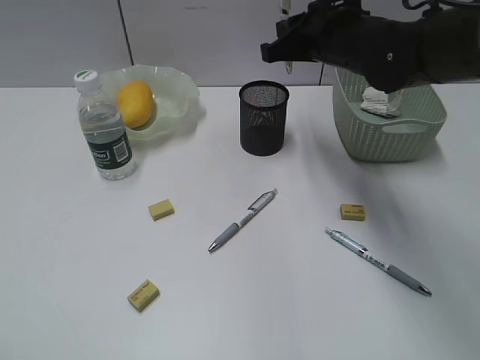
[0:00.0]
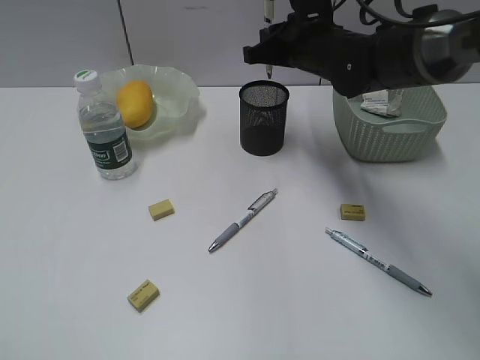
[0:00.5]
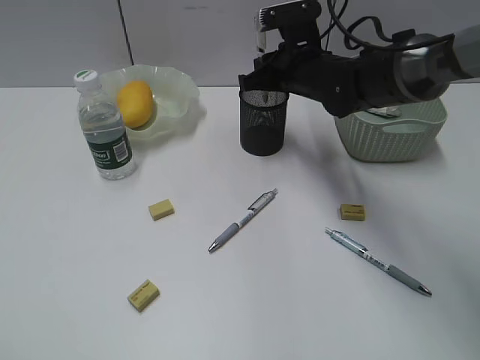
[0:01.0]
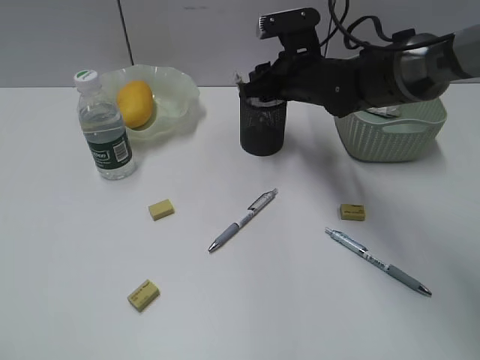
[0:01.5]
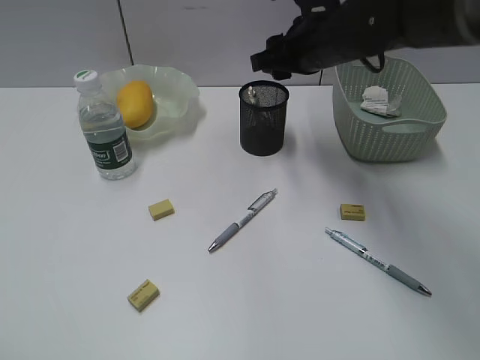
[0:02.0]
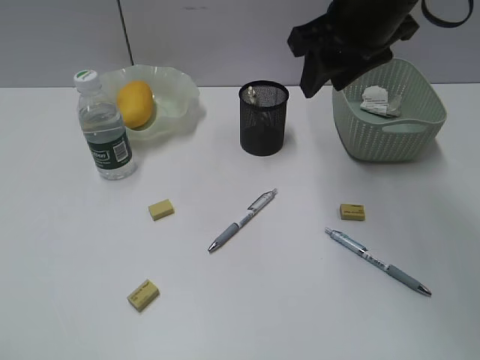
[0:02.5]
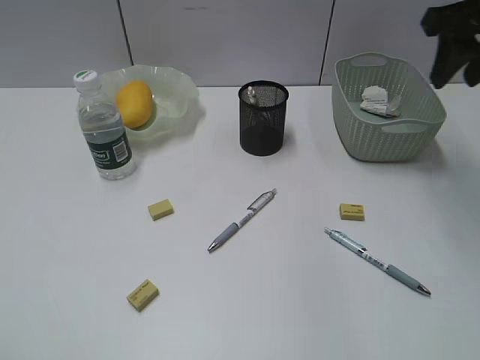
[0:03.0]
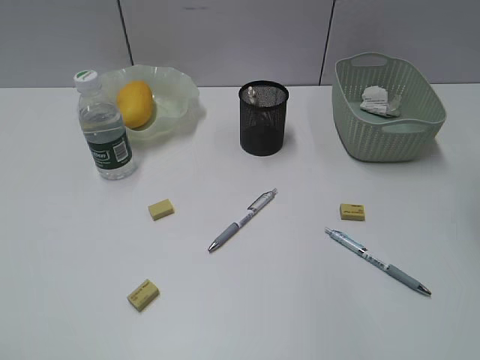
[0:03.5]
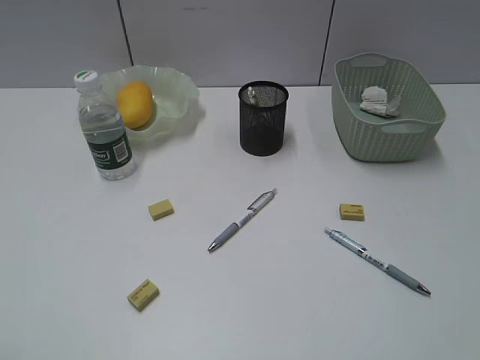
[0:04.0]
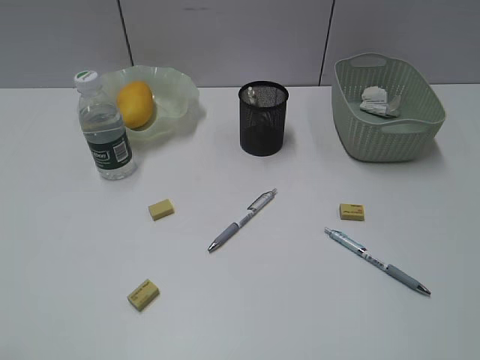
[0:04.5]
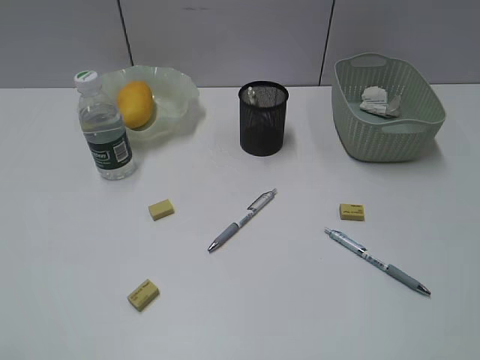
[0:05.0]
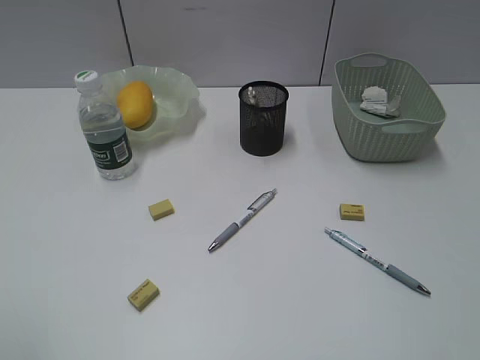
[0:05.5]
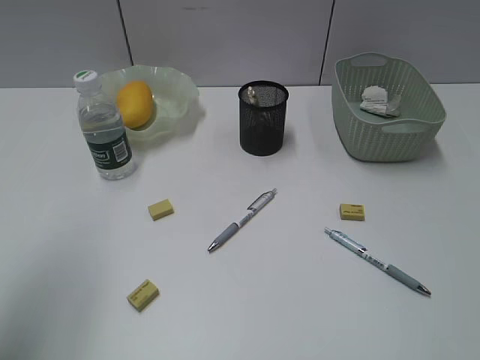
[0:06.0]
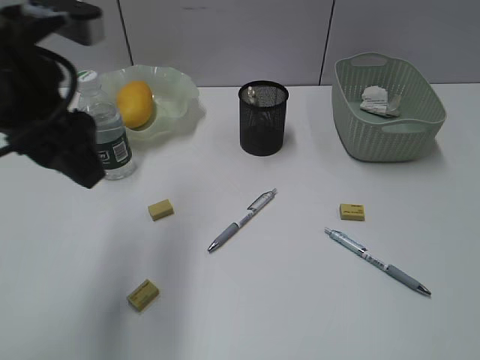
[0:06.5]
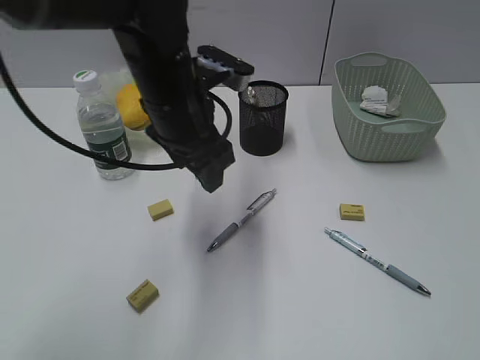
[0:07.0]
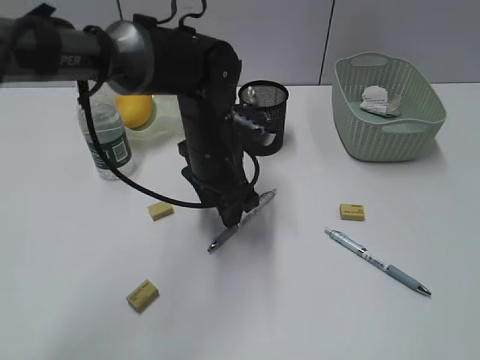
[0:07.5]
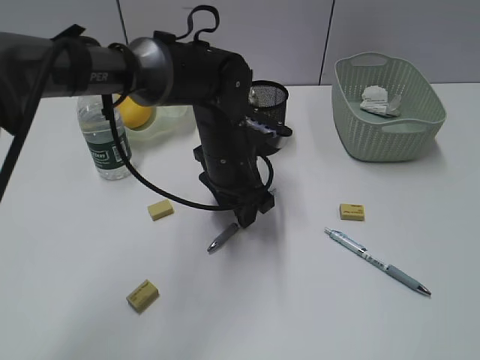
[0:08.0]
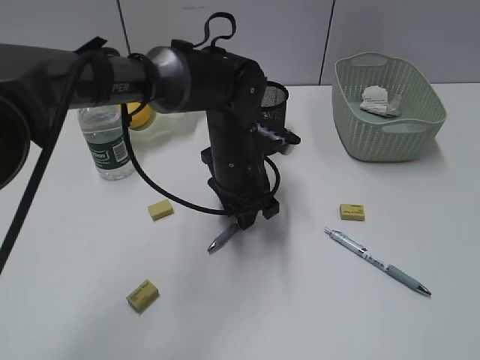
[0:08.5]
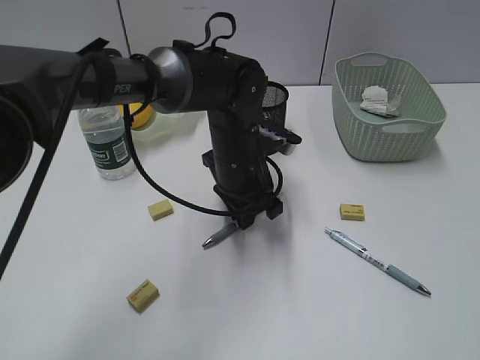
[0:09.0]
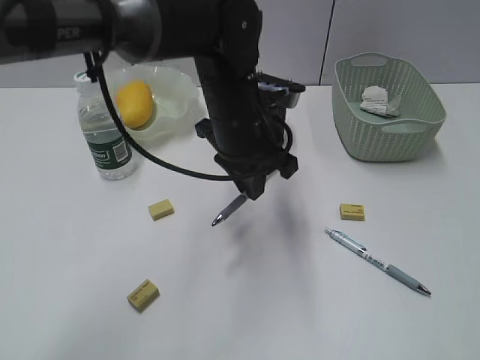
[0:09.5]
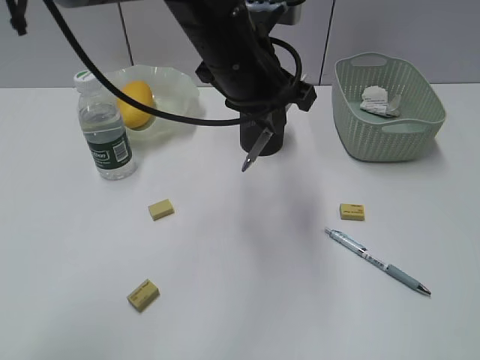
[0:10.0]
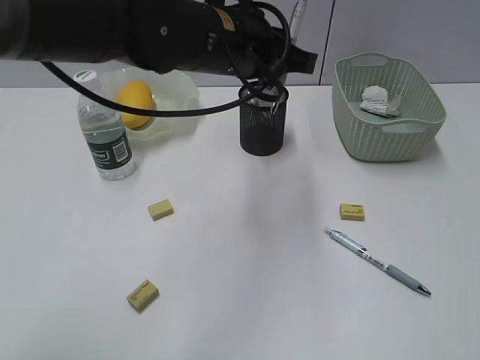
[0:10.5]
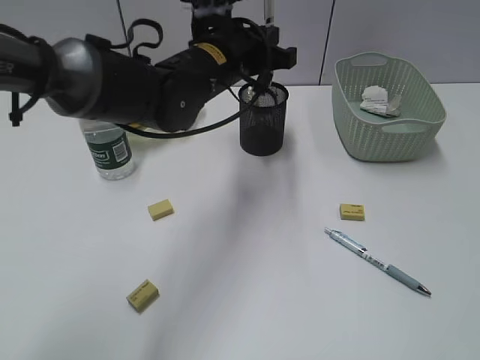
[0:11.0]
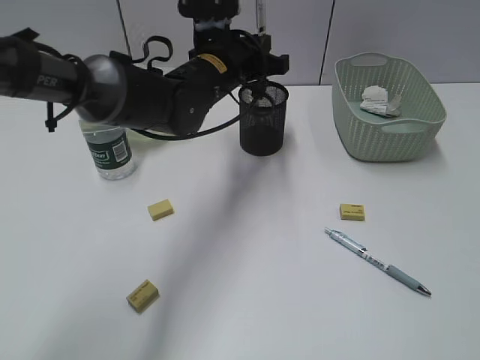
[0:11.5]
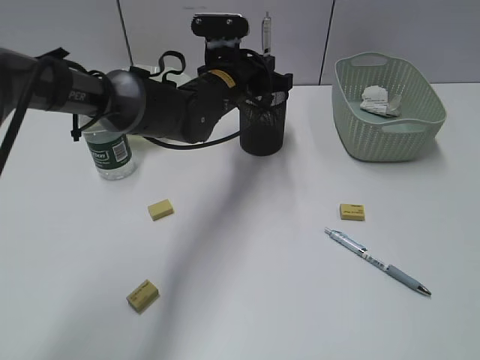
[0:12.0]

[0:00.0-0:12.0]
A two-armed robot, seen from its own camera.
Step, 0:02.0 to 0:08.5: Grasp the gray pen with left gripper.
0:00.0 to 0:02.0: The right gripper opens up.
0:02.0 to 0:04.0: The right gripper moves backward, to the right and upward, some 40 cm.
0:04.0 to 0:06.0: The left gripper moves forward and upward, roughly 15 cm, and opens up.
0:06.0 to 0:08.0: The left gripper moves to the right, downward and forward, roughly 40 cm.
0:08.0 to 0:10.0: The left gripper heads upward, covering about 15 cm, and closes.
0:10.0 to 0:12.0: The left gripper shifts approximately 15 cm downward and forward.

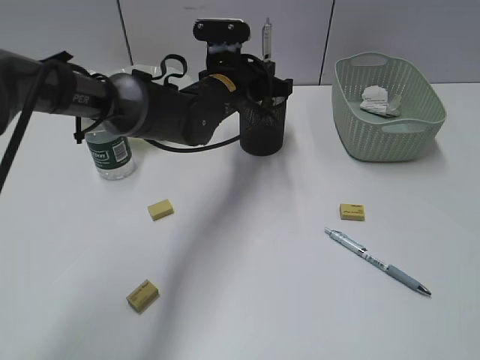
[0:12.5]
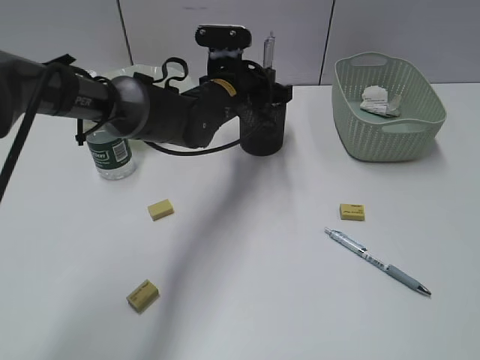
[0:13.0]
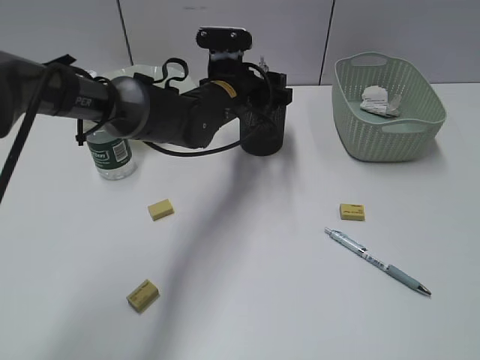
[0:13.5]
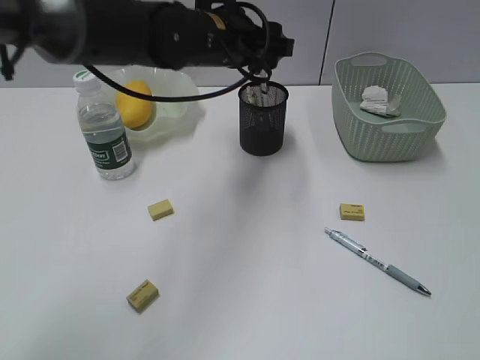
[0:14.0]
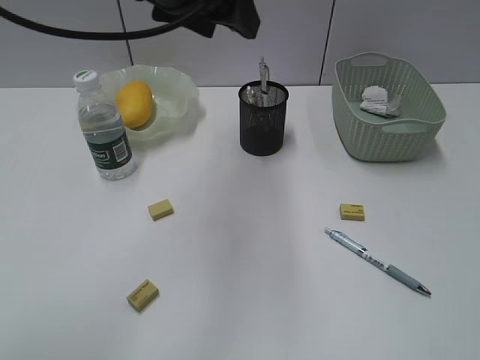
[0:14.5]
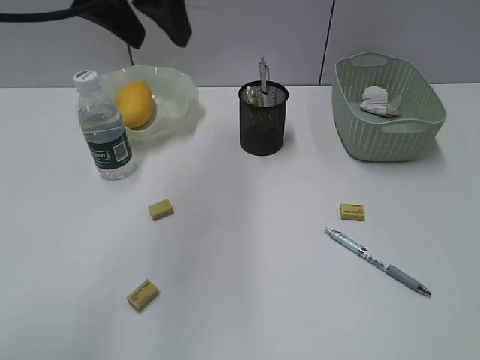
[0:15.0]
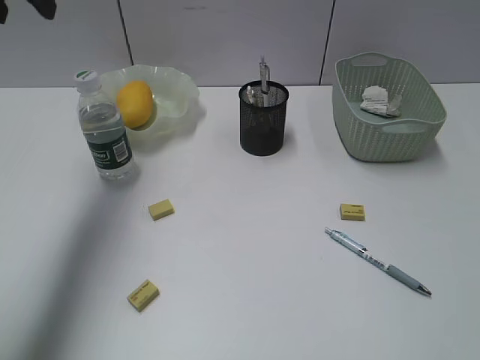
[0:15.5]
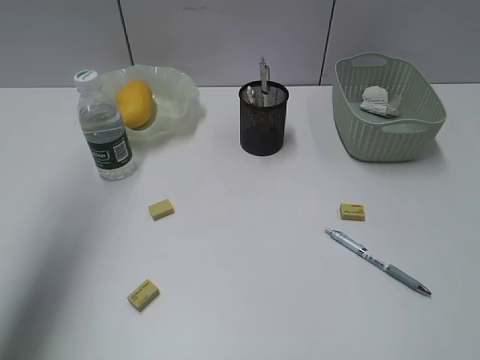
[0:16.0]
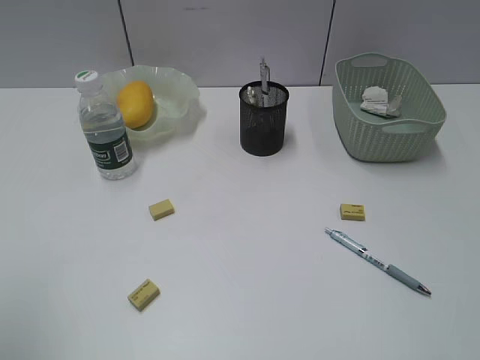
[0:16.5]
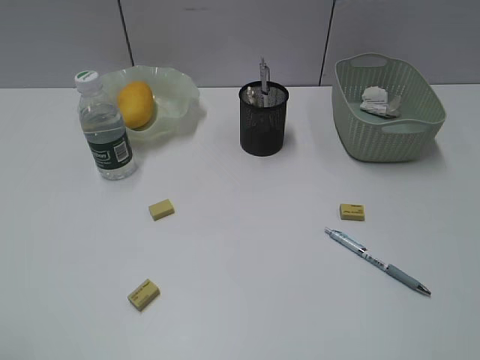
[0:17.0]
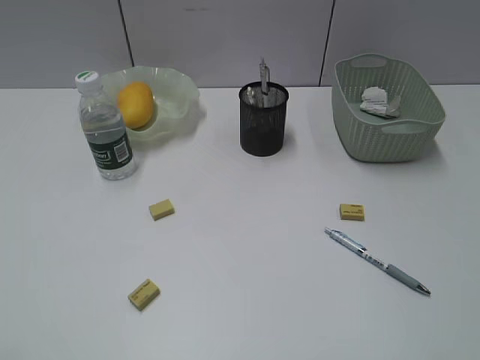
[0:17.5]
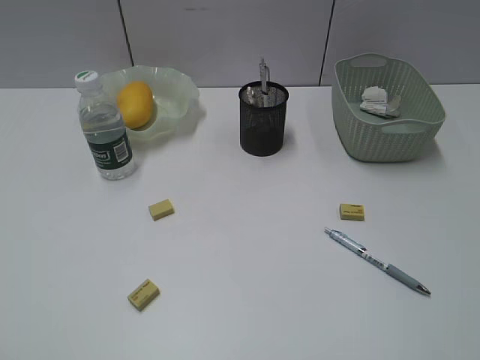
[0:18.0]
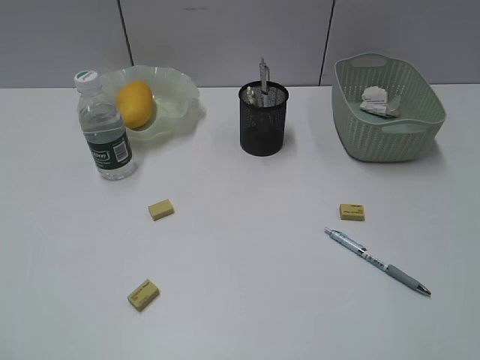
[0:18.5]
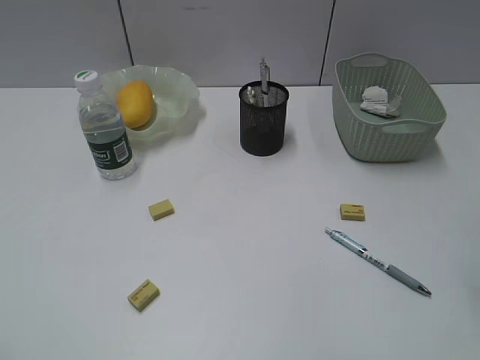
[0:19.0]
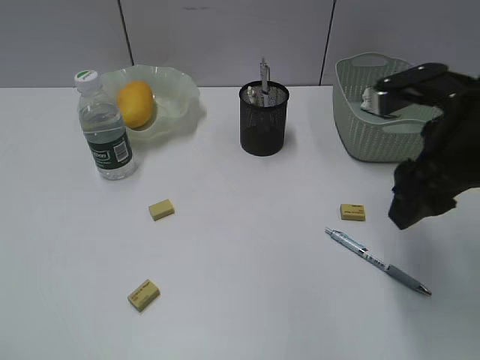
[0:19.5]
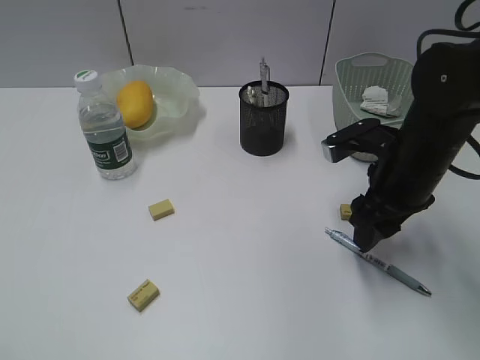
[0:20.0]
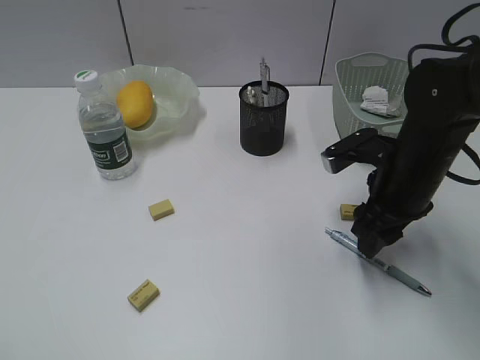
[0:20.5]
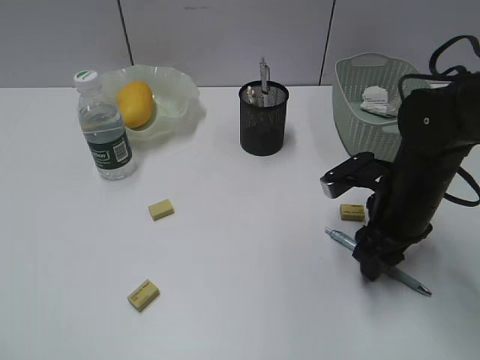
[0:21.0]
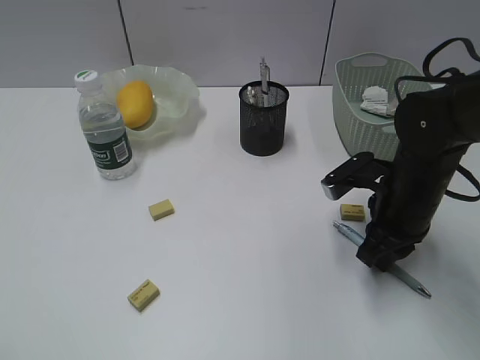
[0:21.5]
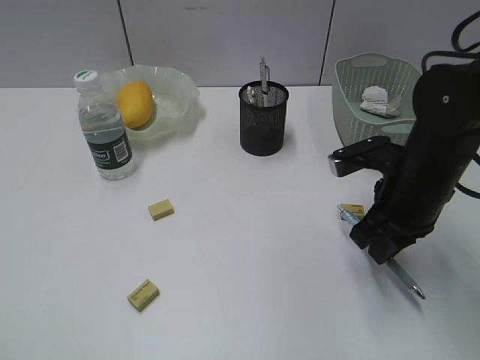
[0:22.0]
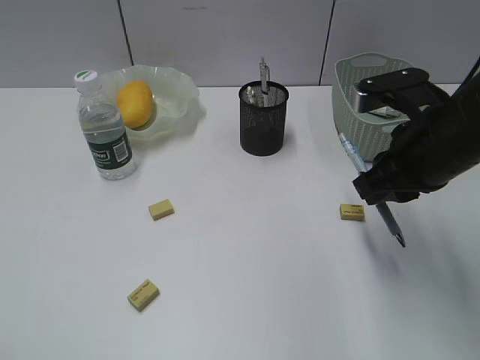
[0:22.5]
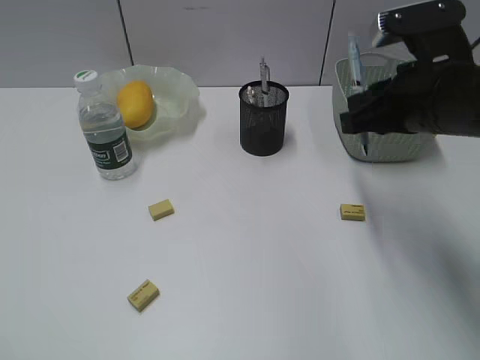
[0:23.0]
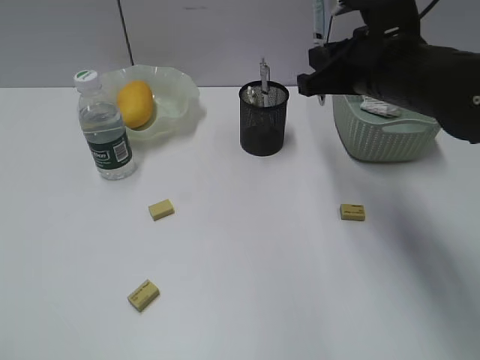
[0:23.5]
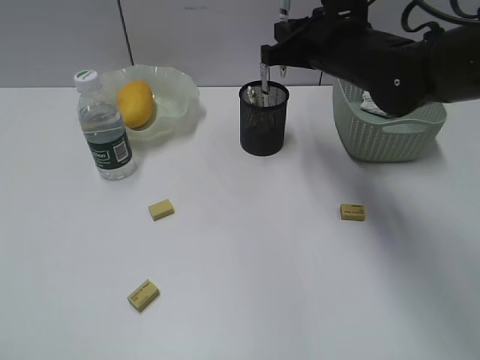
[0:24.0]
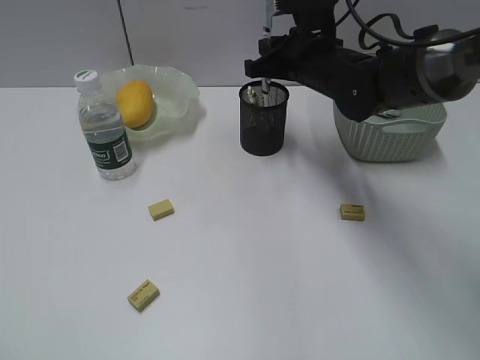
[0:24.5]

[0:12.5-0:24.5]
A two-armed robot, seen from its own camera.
Step, 0:14.0 to 0:21.5: Grasp the blue pen with right gripper.
0:12.5 to 0:14.5: The left gripper goes roughly 20 cm upward and backward, and opens its fingers.
0:14.5 to 0:16.5: The left gripper is displaced to the left and backward by about 35 cm.
0:18.5 to 0:20.5: The right gripper heads forward, downward and to the left, covering roughly 35 cm.
0:20.5 to 0:22.5: The right gripper goes roughly 5 cm upward, and closes its fingers.
0:22.5 to 0:24.5: The right gripper travels forward and to the left by approximately 20 cm.

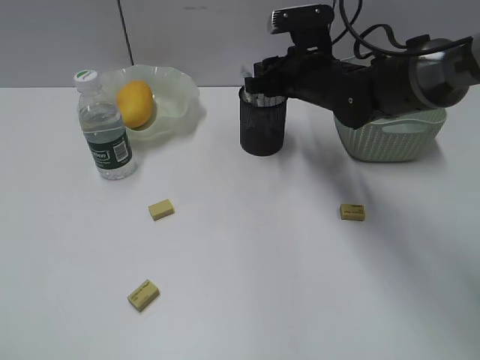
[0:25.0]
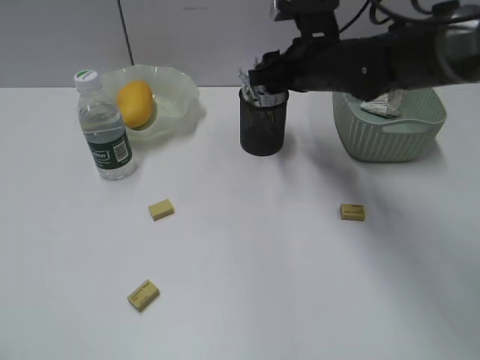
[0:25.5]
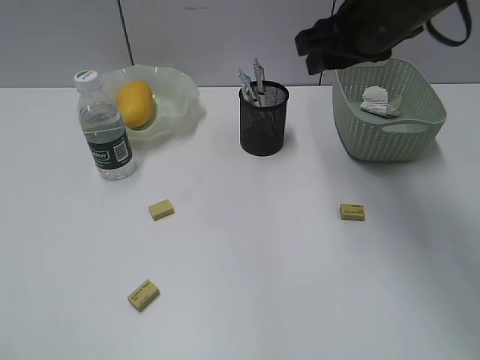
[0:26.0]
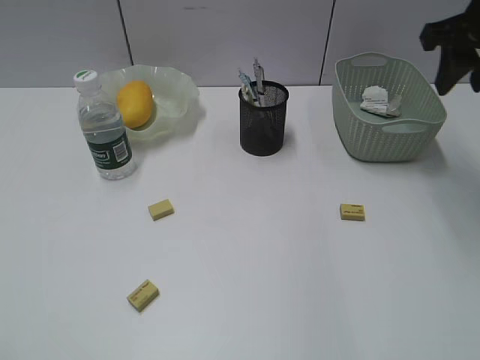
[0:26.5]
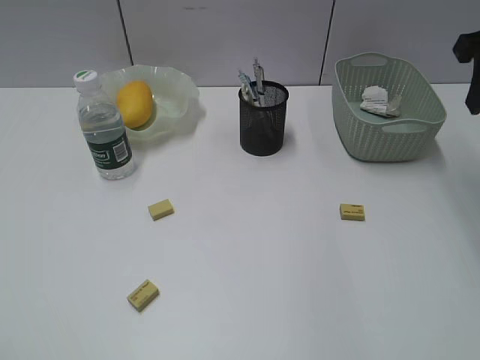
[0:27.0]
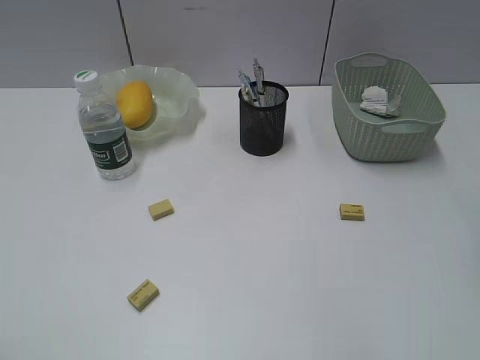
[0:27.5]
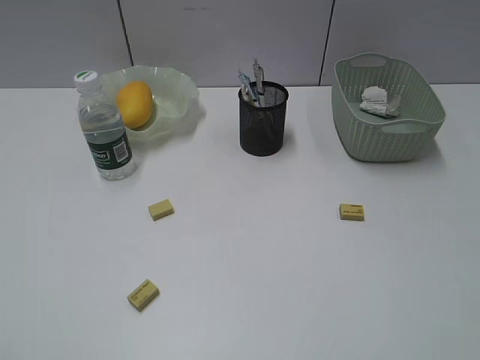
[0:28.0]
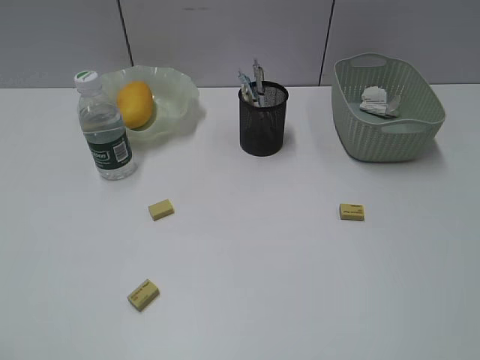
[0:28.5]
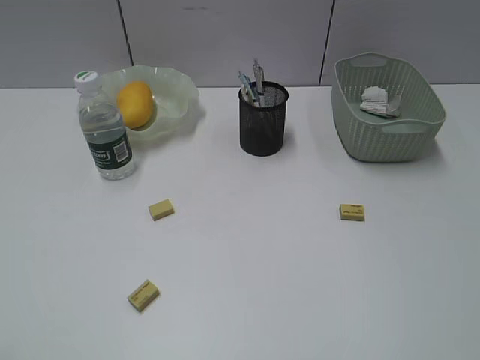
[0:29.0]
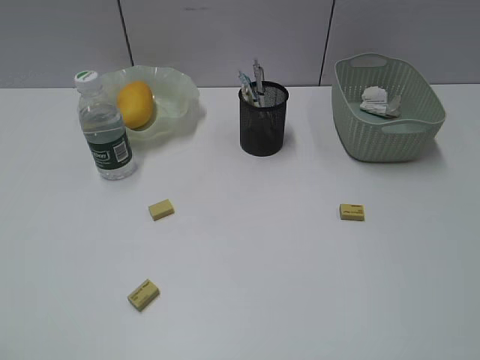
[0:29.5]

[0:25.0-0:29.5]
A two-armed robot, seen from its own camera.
0:25.0 to 0:27.0: The right gripper travels to the right, upward and backward by approximately 25 cm.
0:27.0 to 0:29.5: The right gripper shifts about 35 cm backward.